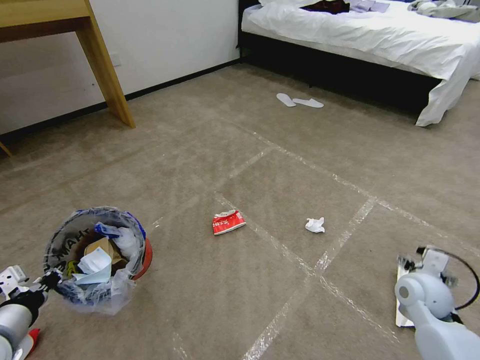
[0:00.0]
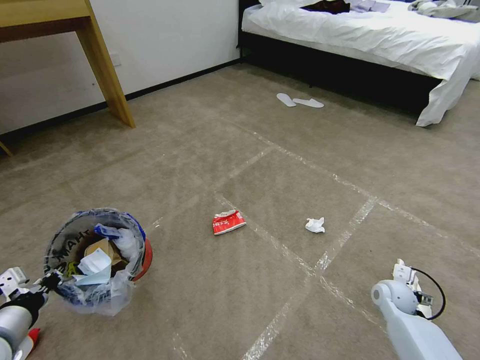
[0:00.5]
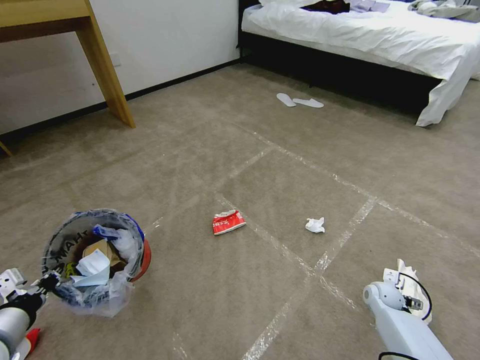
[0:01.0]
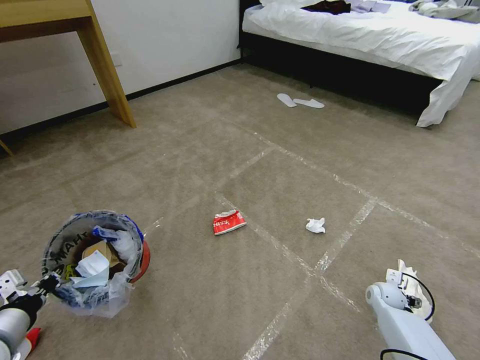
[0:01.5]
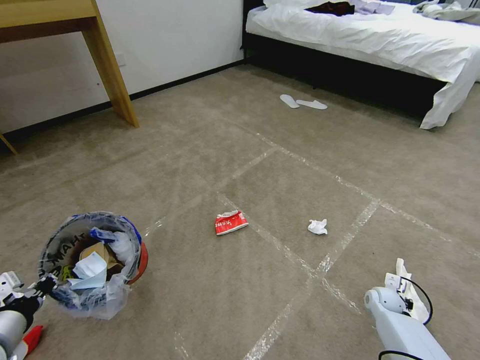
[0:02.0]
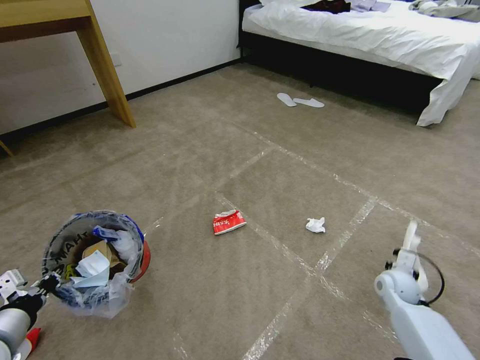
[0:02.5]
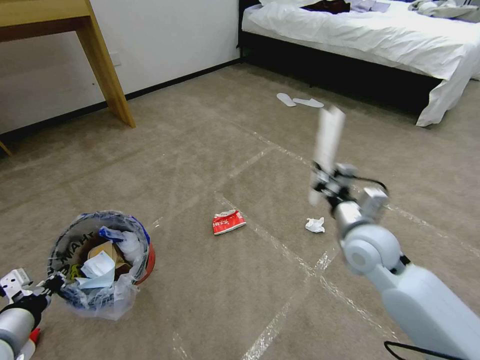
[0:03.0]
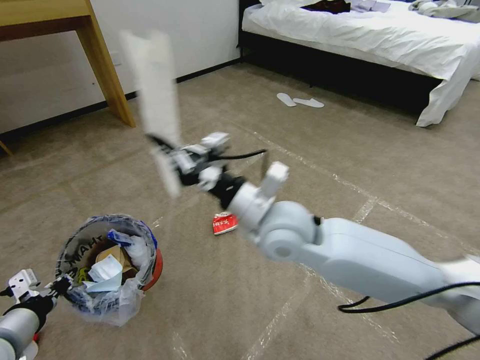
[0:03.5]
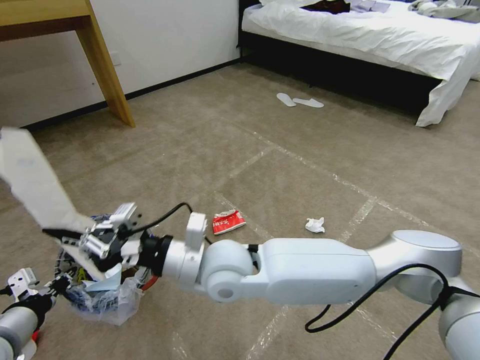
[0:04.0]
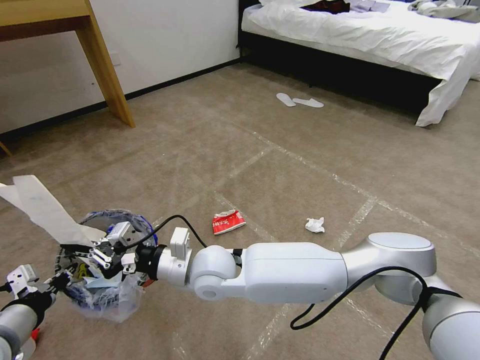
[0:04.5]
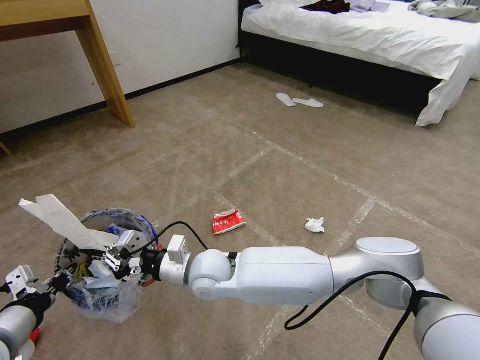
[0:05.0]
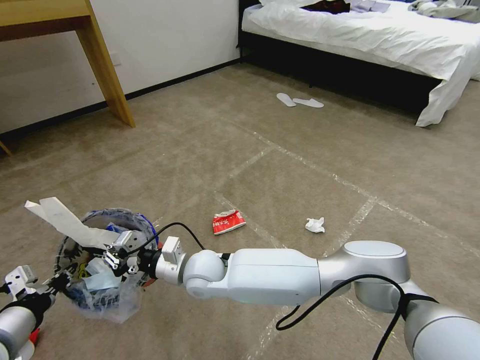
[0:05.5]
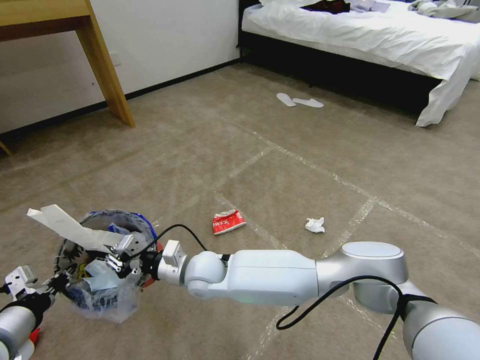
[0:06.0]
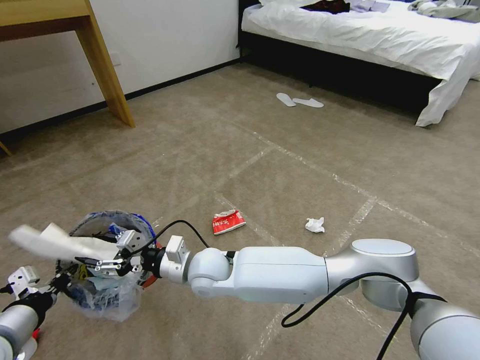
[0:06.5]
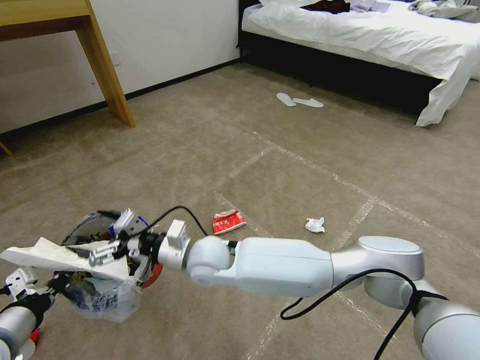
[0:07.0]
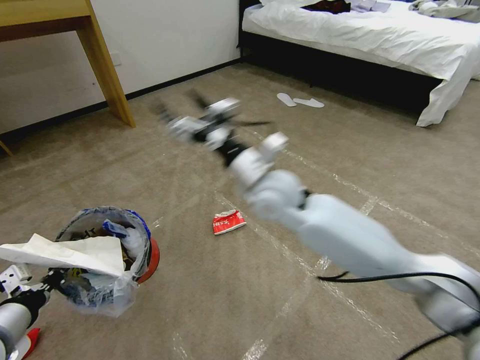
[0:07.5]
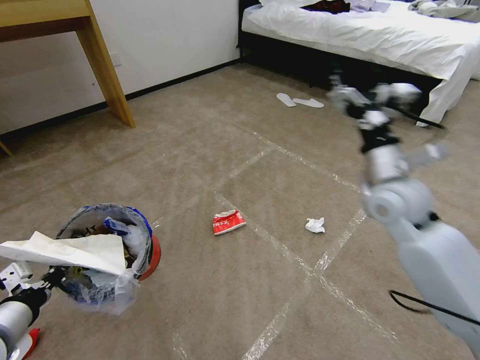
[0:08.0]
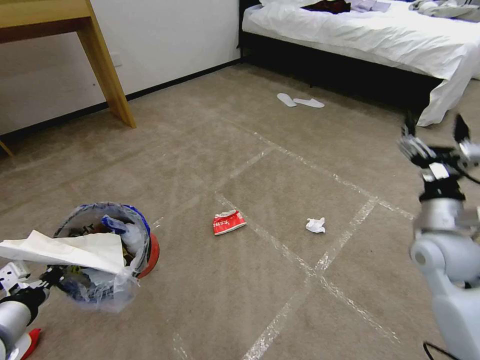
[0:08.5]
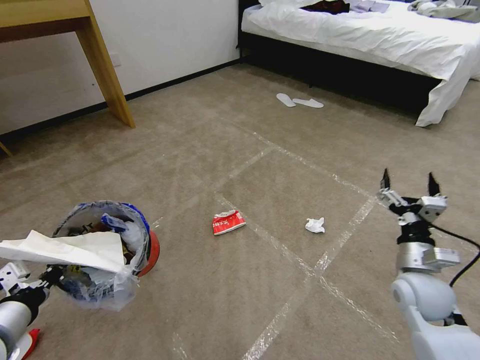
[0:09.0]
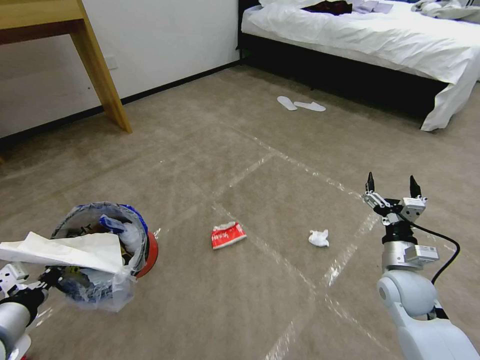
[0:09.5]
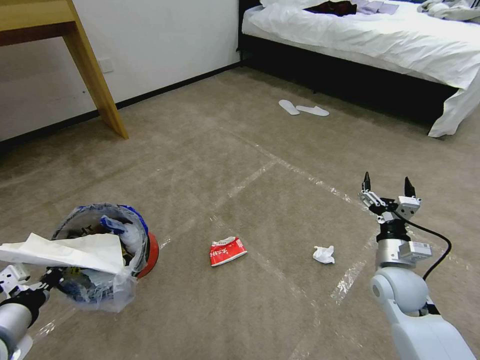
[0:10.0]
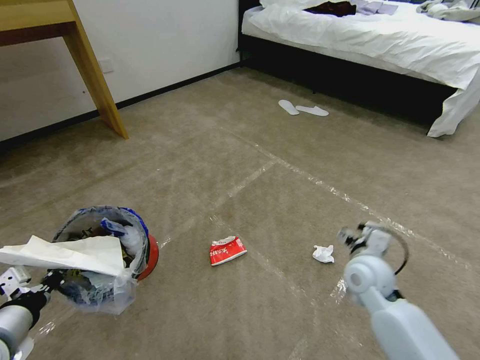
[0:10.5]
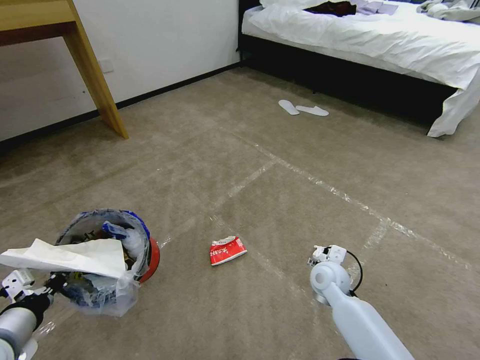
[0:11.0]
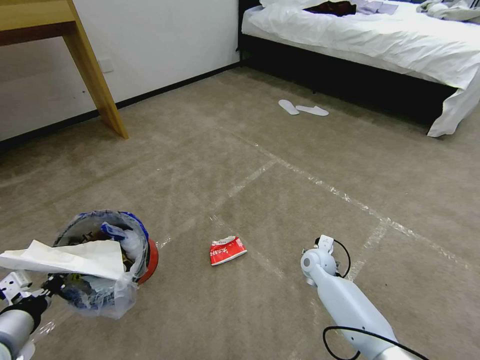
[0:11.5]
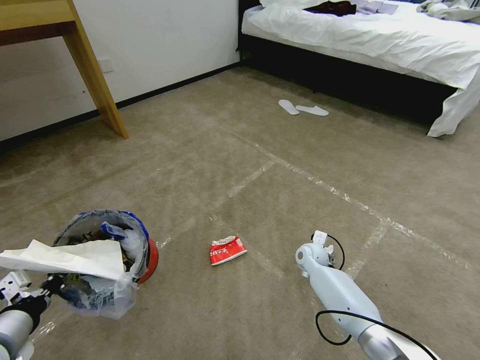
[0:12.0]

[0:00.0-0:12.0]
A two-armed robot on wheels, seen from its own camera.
Task of the whole recording: Pick up the trash bin and place the garbage on the floor into it.
0:00.0 to 0:02.0: The right gripper is displaced downward by about 20 cm, and closes up.
0:02.0 to 0:04.0: The right gripper goes about 60 cm to the left and upward.
0:04.0 to 0:06.0: The right gripper moves downward and to the left, about 15 cm.
0:06.0 to 0:08.0: The right gripper is displaced to the right and upward by roughly 40 cm, and opens.
0:08.0 to 0:10.0: The right gripper travels downward, to the right and backward by about 25 cm.
0:10.0 to 0:12.0: The right gripper travels forward, downward and to the left by approximately 25 cm.

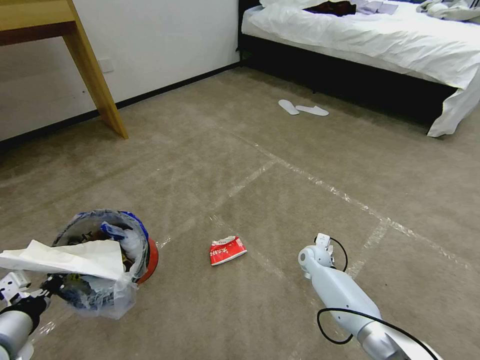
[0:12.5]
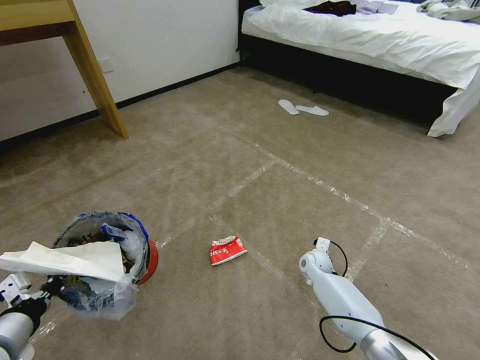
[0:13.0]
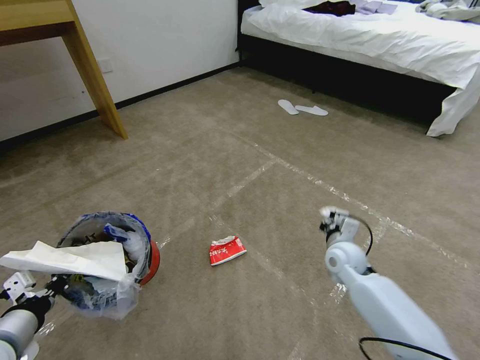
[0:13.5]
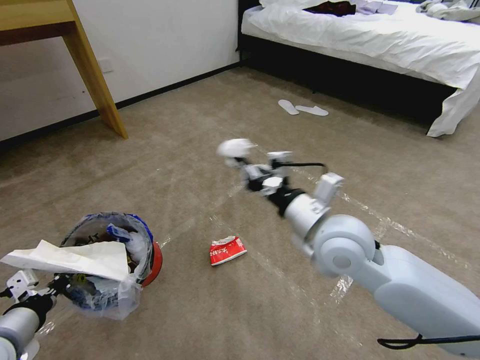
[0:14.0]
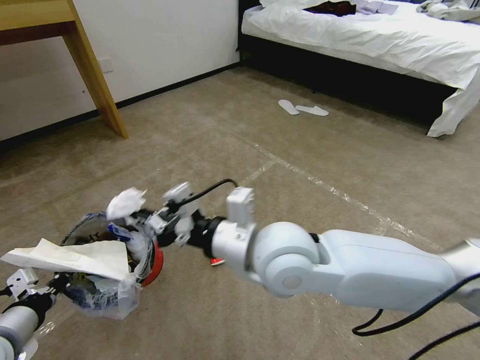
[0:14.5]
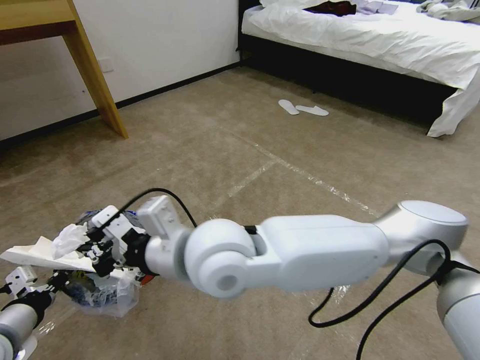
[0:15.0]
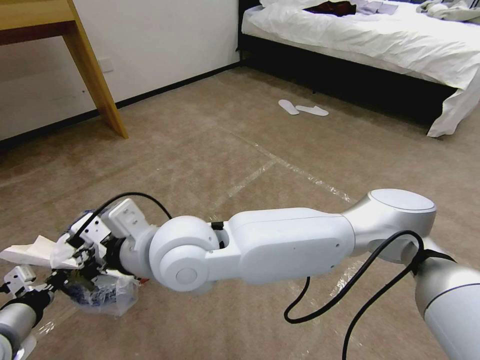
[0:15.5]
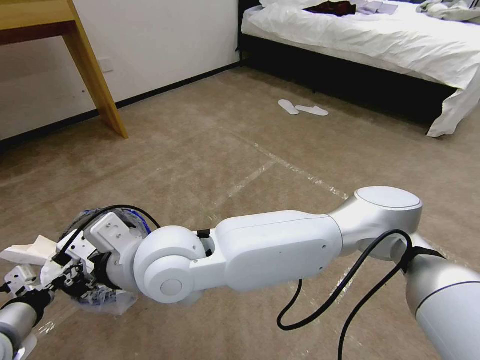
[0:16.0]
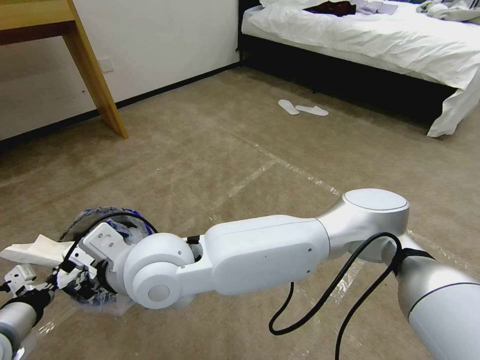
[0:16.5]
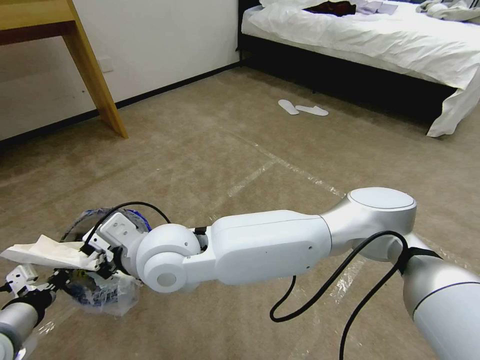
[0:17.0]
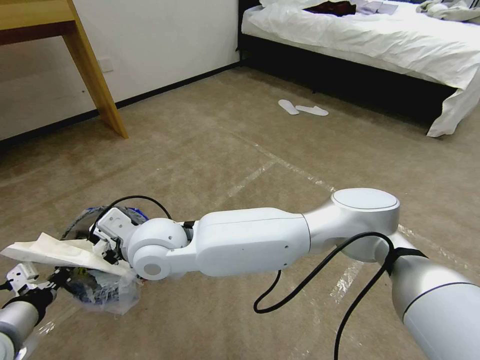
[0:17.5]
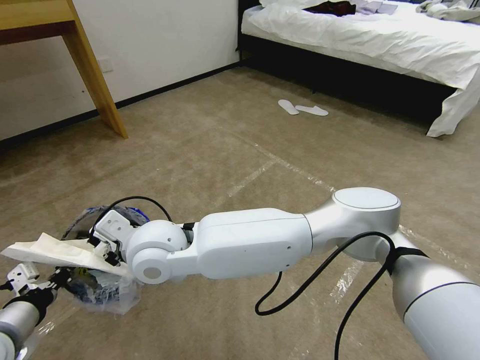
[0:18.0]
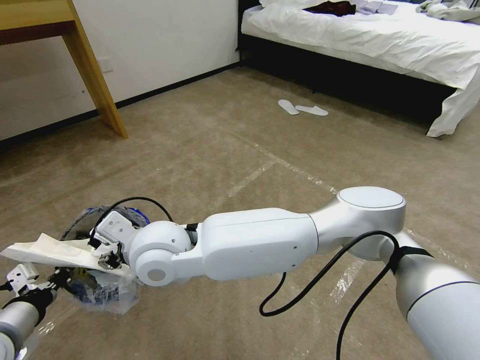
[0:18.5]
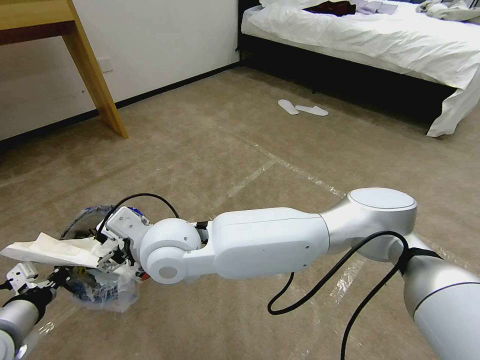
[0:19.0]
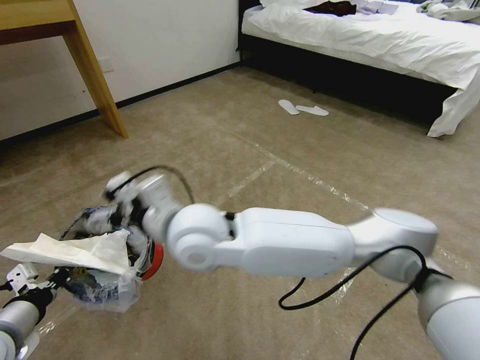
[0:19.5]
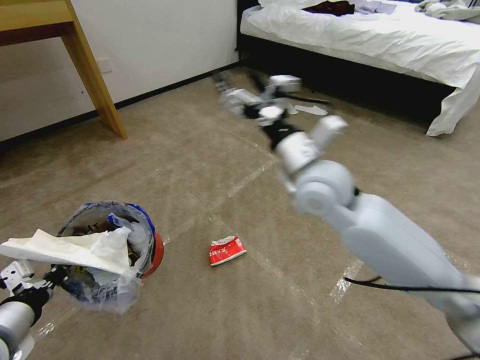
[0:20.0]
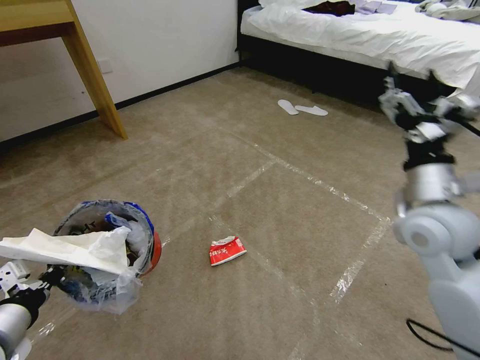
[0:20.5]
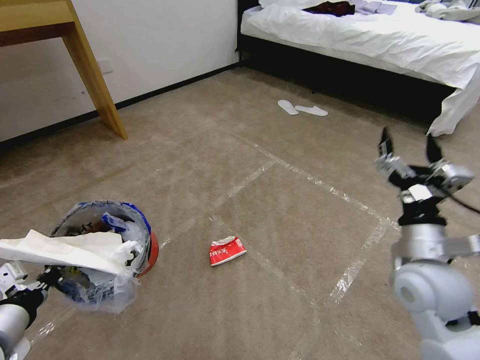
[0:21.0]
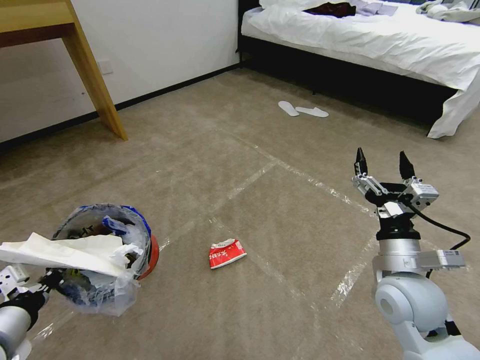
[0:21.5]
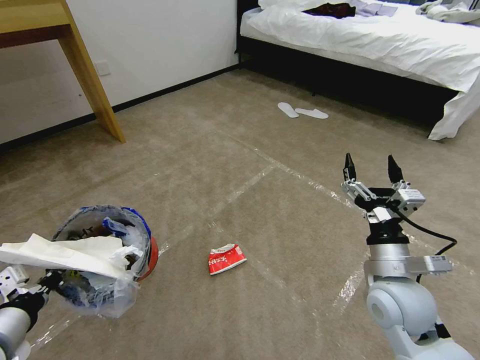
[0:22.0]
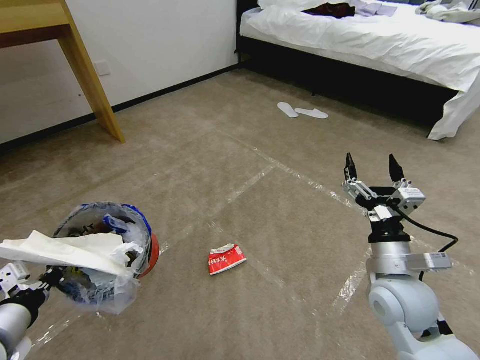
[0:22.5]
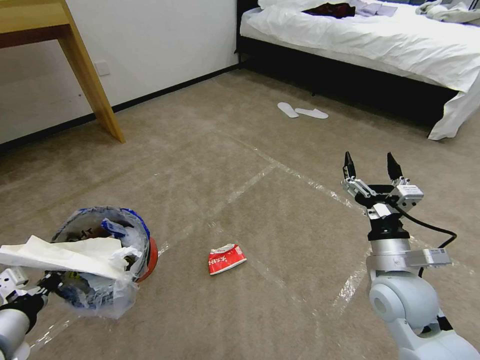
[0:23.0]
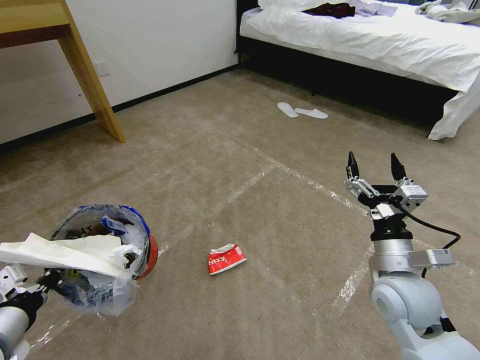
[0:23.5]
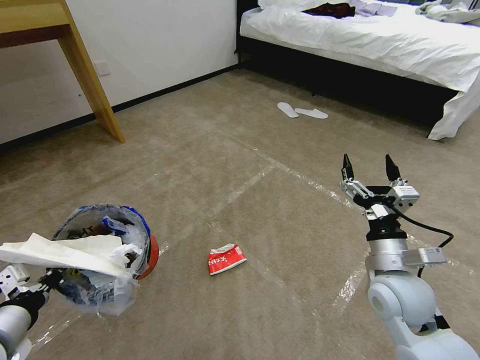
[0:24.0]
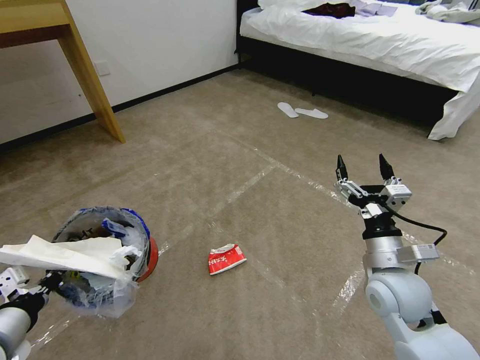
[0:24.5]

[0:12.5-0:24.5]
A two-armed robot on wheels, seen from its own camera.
Task of the whole recording: Pick up the trash bin and place the garbage on the floor into it.
0:12.5 to 0:14.5: The right gripper moves upward, to the left and backward, about 50 cm, and closes up.
0:14.5 to 0:16.5: The right gripper shifts some 15 cm to the left.
0:16.5 to 0:18.5: The right gripper opens.
0:18.5 to 0:20.5: The right gripper moves to the right, about 40 cm, and opens up.
0:20.5 to 0:22.5: The right gripper moves downward and backward, some 15 cm.
0:22.5 to 0:24.5: The grippers move only a little.

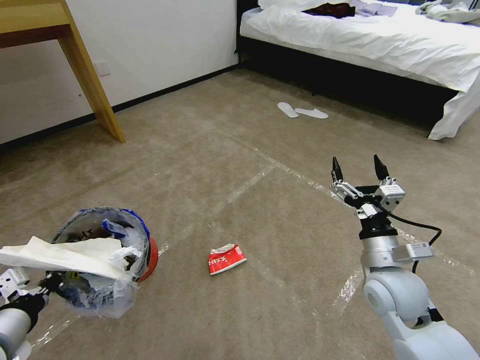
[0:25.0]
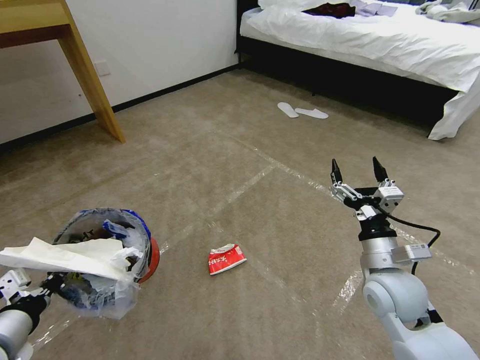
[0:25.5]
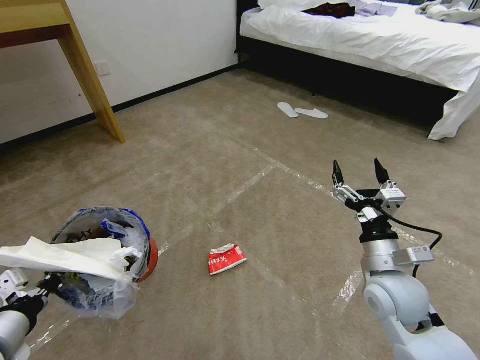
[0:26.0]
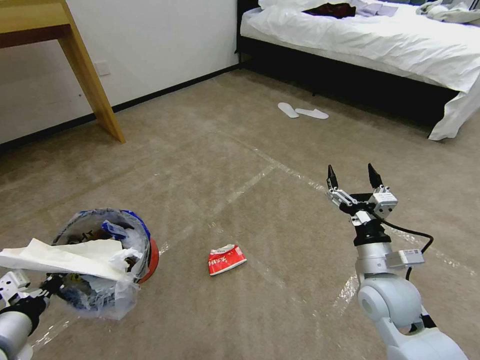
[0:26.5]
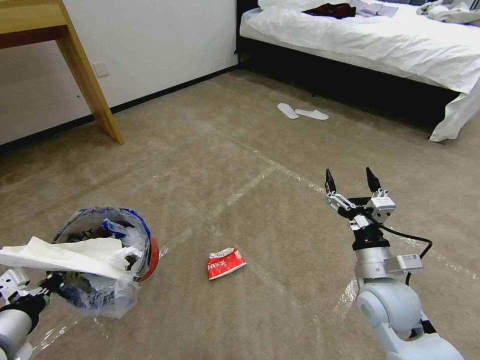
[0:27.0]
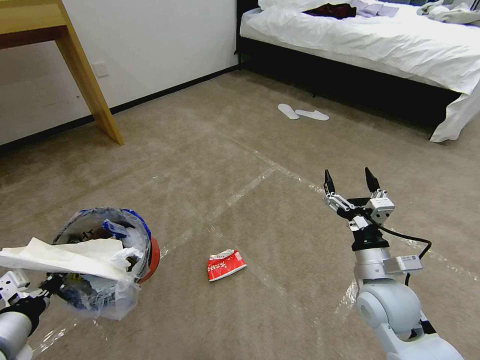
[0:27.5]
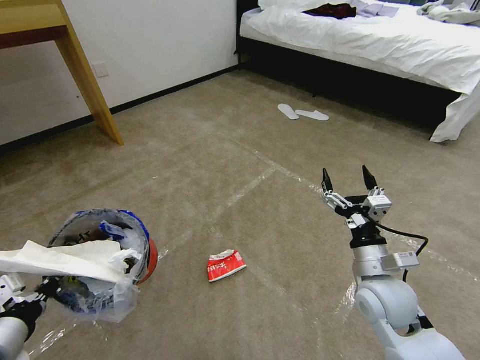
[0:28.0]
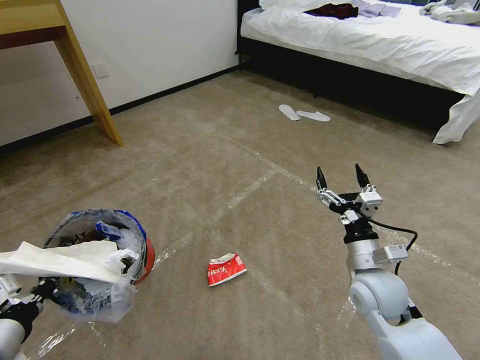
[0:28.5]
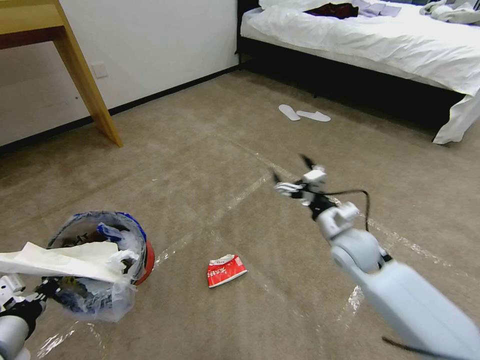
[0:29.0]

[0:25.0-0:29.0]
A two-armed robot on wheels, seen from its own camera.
Task of the whole recording: Pick up the trash bin and place the garbage on the floor into it.
0:25.0 to 0:27.0: There are only small adjustments of the grippers.
0:27.0 to 0:29.0: The right gripper is displaced forward by approximately 10 cm.
